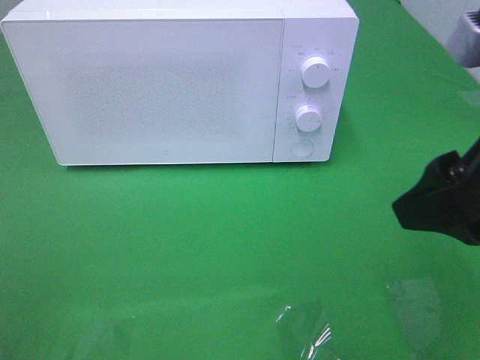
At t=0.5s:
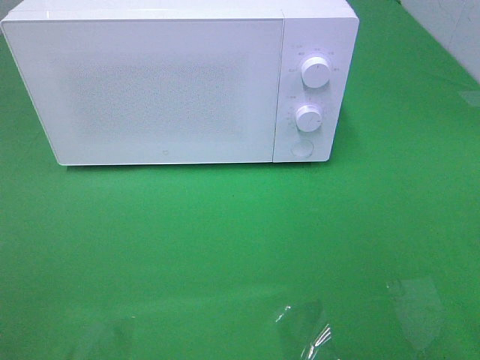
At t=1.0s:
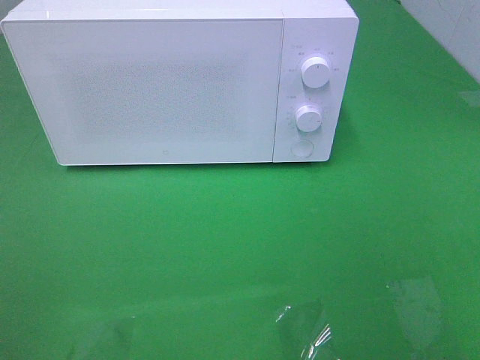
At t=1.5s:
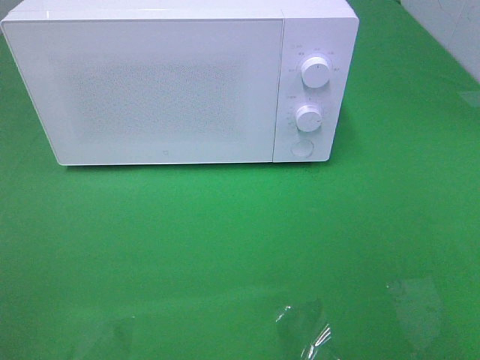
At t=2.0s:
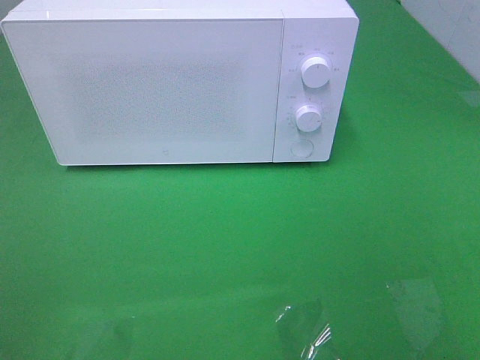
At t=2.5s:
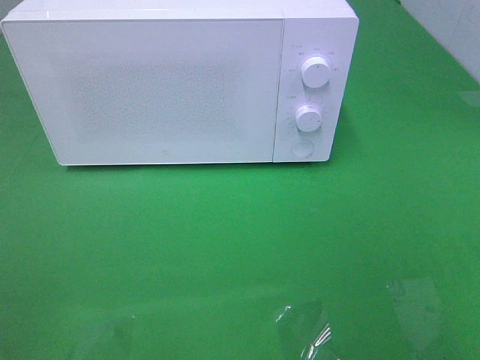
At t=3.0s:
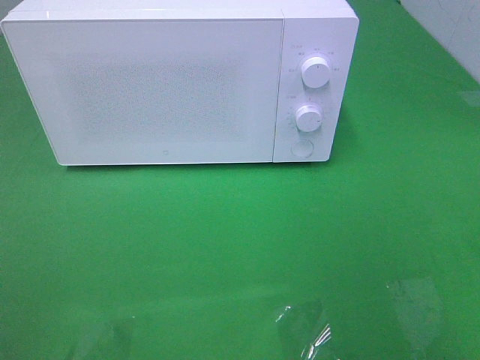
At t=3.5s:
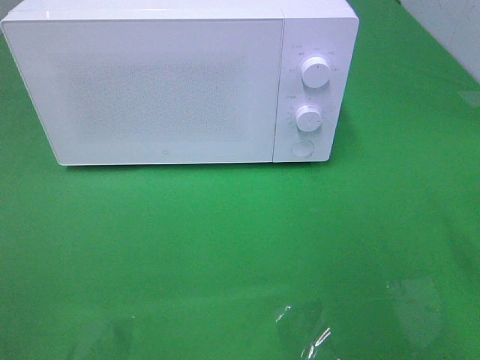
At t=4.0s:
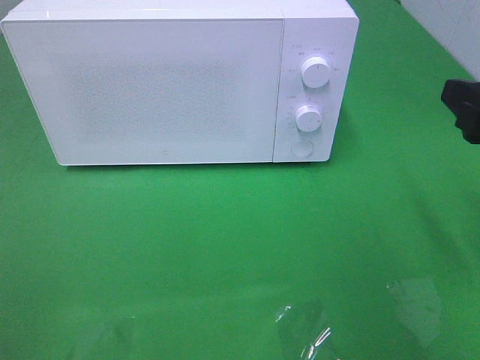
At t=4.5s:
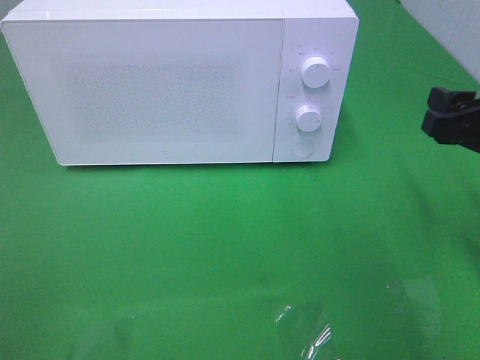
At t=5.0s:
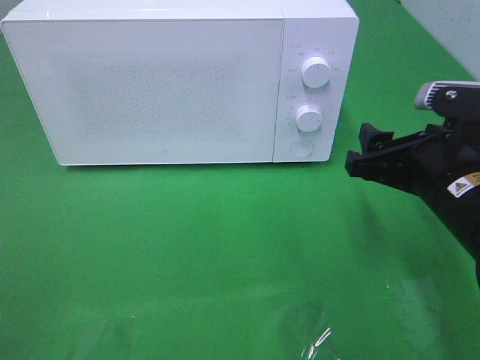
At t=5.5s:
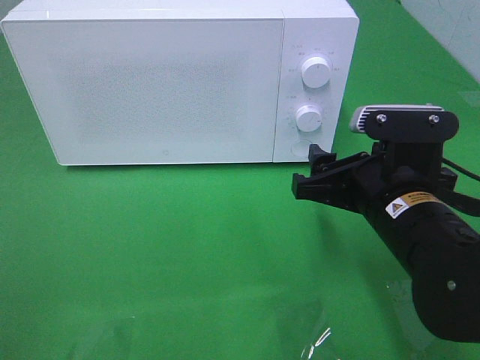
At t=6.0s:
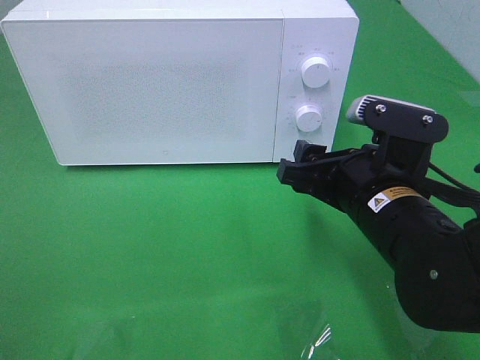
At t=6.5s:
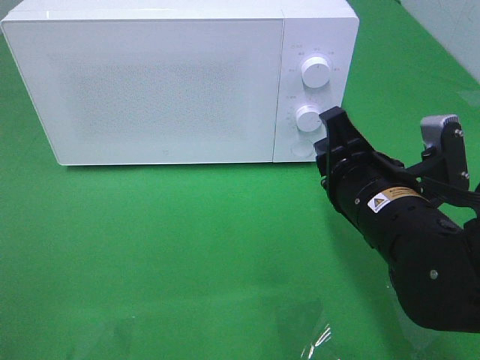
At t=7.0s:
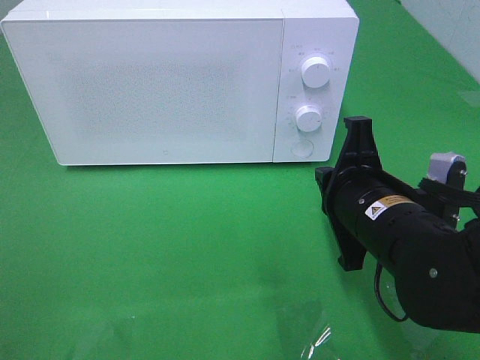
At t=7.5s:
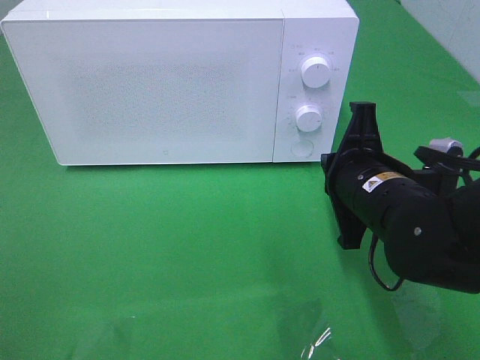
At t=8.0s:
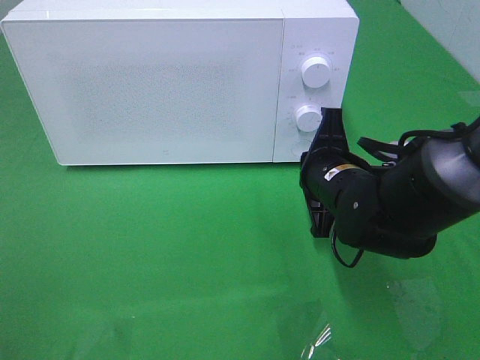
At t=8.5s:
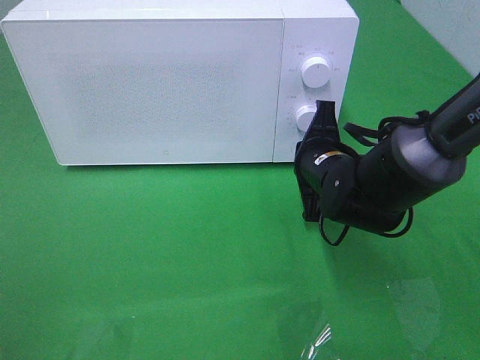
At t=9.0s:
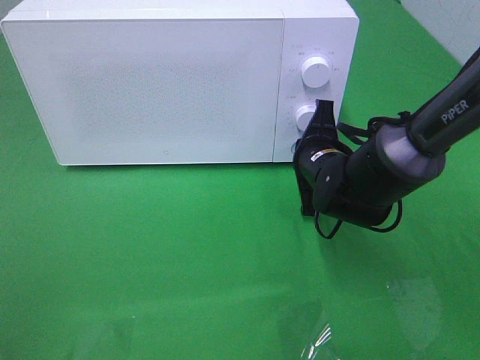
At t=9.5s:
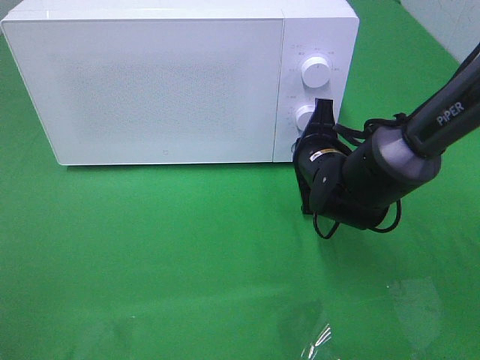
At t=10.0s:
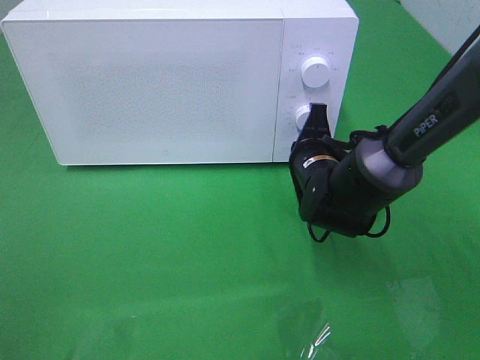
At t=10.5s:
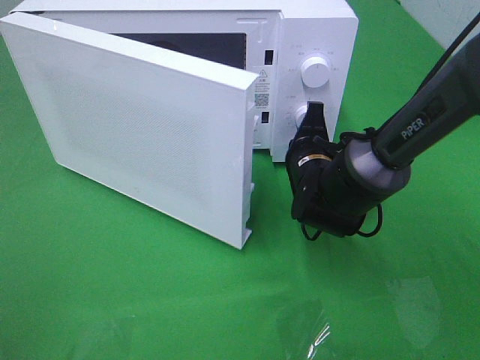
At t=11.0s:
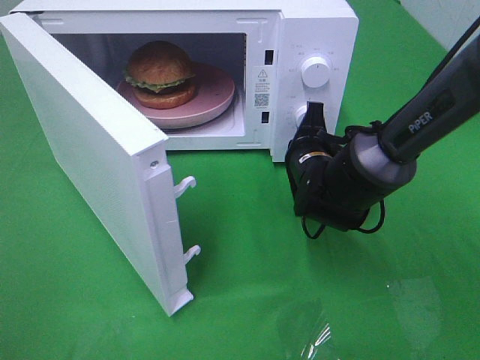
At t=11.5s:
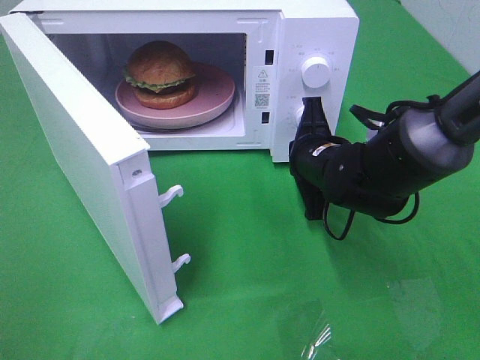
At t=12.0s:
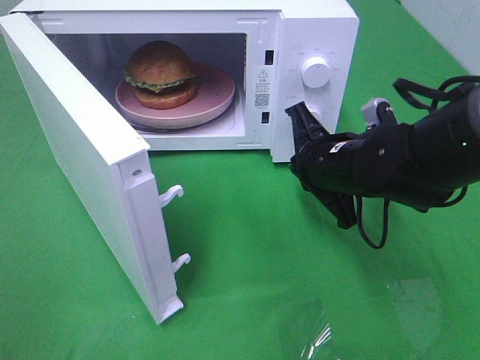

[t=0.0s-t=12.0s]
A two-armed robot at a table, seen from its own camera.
Task of the whole recording: Heat the burger.
Step, t=0.0s to t=11.5s: Right hand: press the switch.
t=0.0s to t=2.0s: The right gripper heads backward and to the right, covering approximately 15 cm.
t=2.0s to t=4.0s: The right gripper is displaced forward by some 20 cm.
t=4.0s to t=6.0s: The right gripper heads to the left and downward, covering some 15 cm.
t=6.0s to t=8.0s: The right gripper goes about 5 cm forward, and closes.
t=8.0s to t=10.0s: The right gripper travels forward by some 5 cm.
t=10.0s to t=12.0s: The right gripper moves upward and backward, approximately 10 cm.

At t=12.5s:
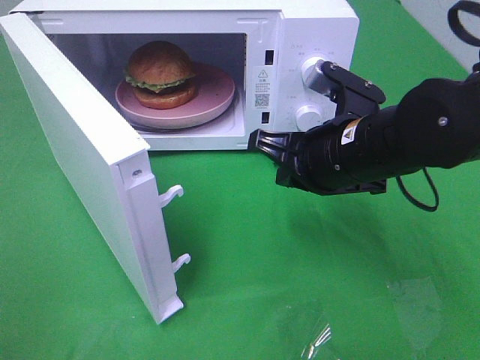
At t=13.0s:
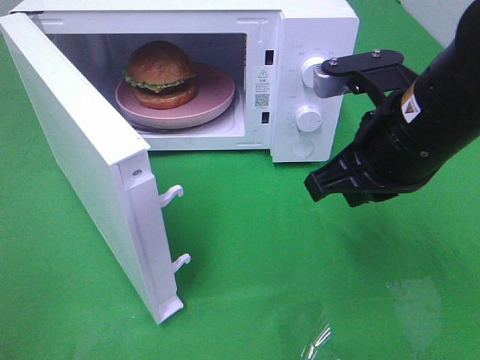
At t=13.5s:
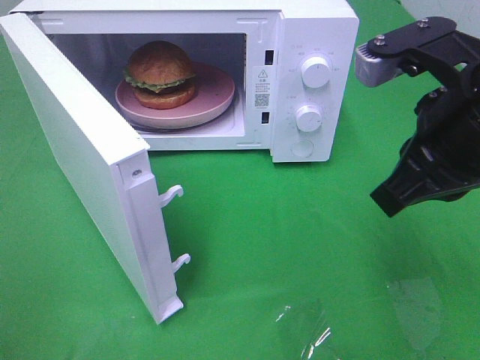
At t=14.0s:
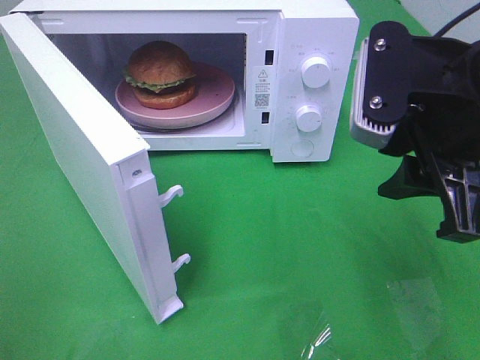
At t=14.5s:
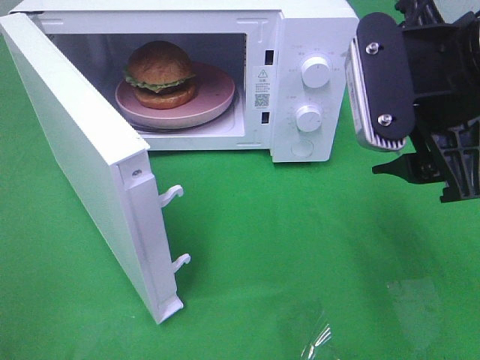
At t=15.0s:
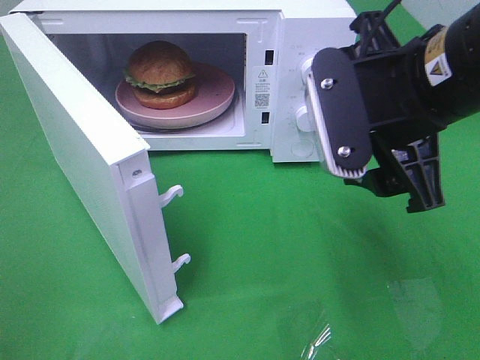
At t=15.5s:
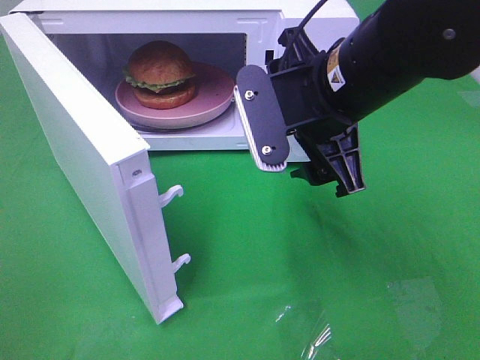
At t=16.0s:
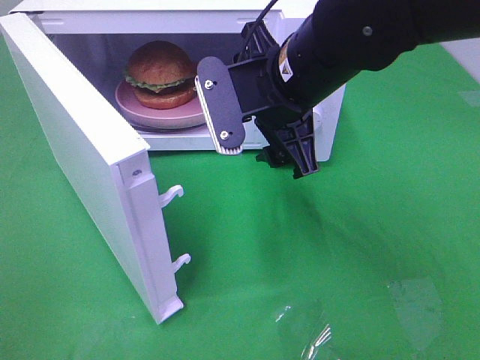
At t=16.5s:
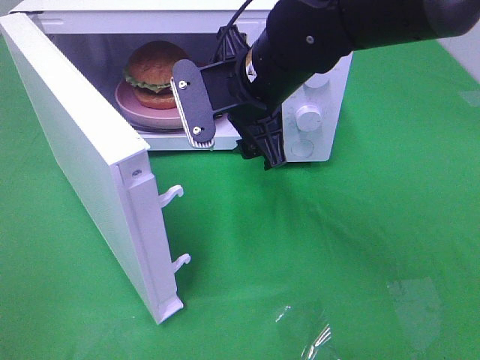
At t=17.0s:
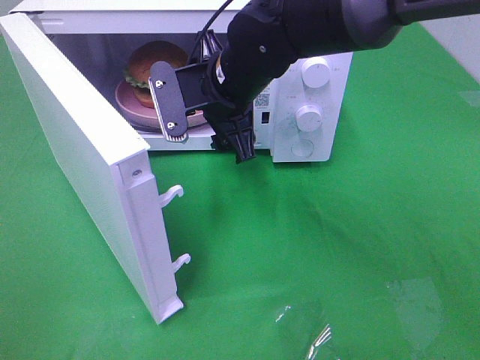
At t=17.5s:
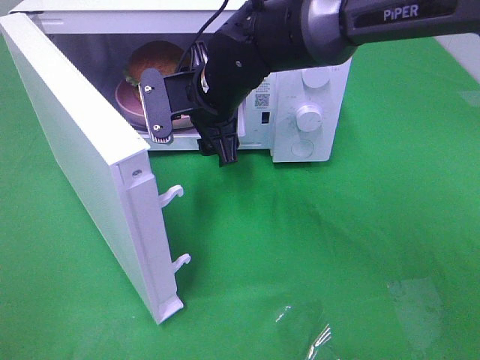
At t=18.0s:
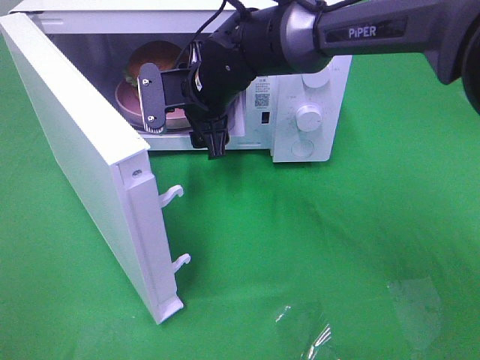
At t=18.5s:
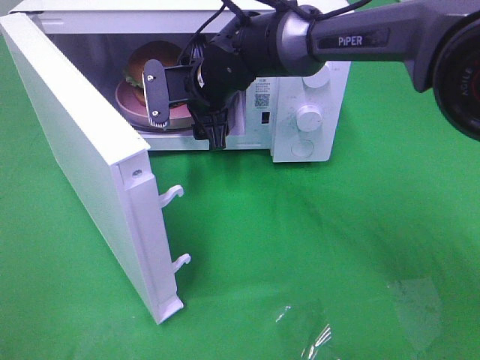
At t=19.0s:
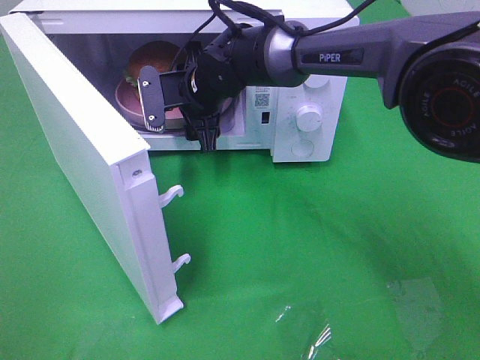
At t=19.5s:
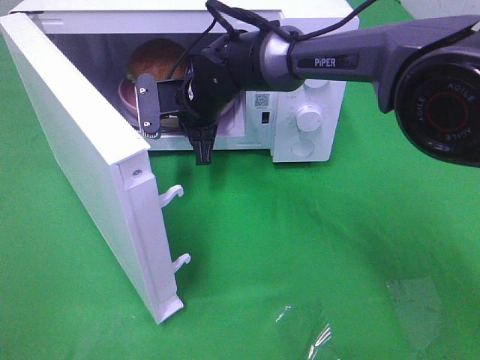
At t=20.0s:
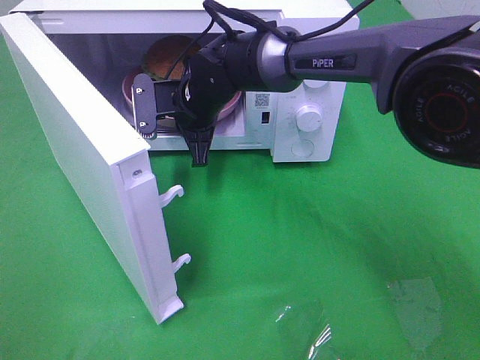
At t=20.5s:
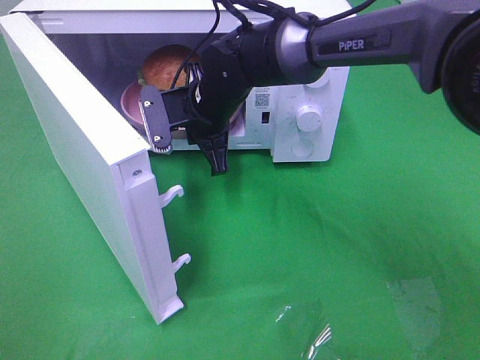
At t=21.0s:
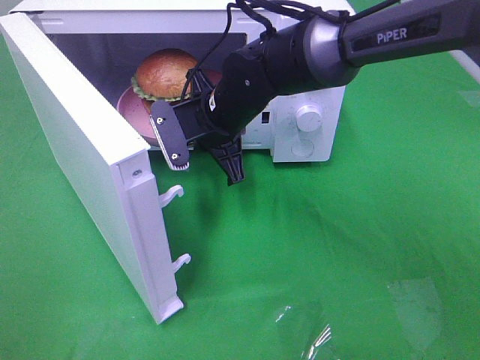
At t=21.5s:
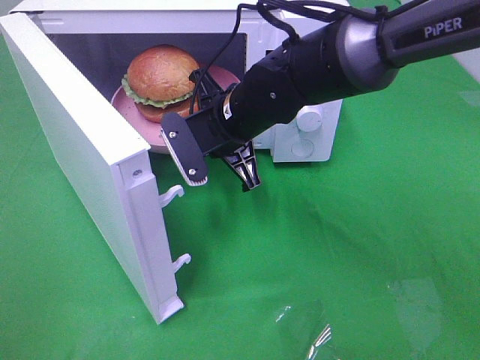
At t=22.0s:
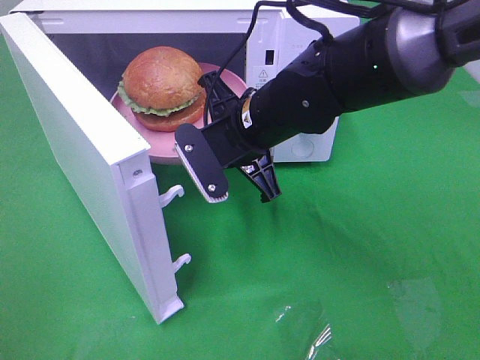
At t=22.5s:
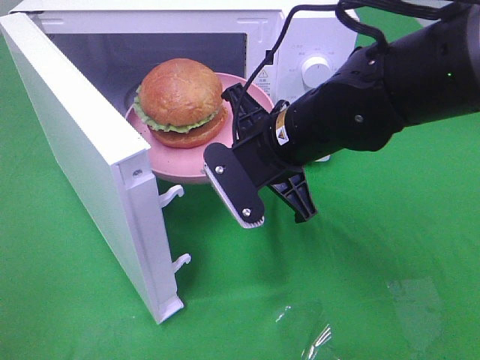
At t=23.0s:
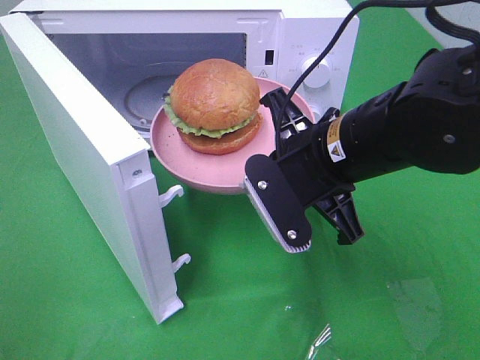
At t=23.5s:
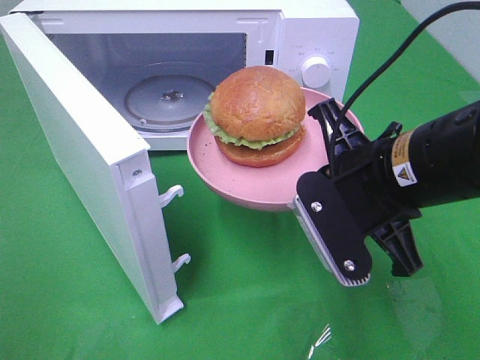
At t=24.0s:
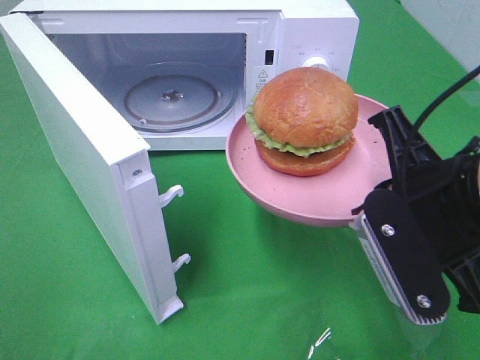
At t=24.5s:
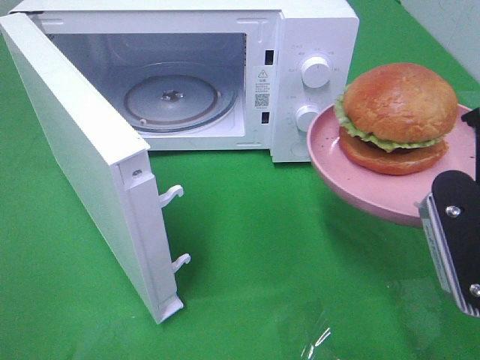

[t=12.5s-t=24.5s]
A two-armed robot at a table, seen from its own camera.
Task of the whole recording: Heat the burger.
Step, t=12.5s to t=19.5s: Right hand: grab the plate with the hamburger.
t=12.5s to t=14.5s: The right gripper heads upward, covering some 10 cm, and opens.
t=14.5s to t=16.5s: The right gripper goes about 20 cm to the left, forward and downward.
t=16.5s to t=18.5s: The right gripper goes roughly 15 cm forward, downward and to the left.
t=18.5s to t=20.5s: The right gripper closes up.
t=20.5s to t=22.5s: The right gripper travels backward and to the right by about 15 cm.
t=22.5s to t=24.5s: The right gripper moves to the right and backward, roughly 20 cm.

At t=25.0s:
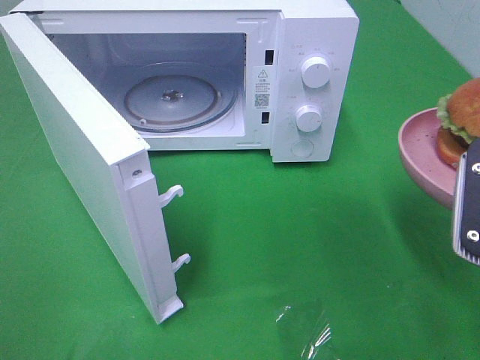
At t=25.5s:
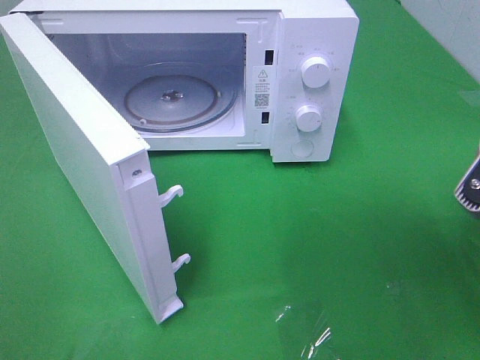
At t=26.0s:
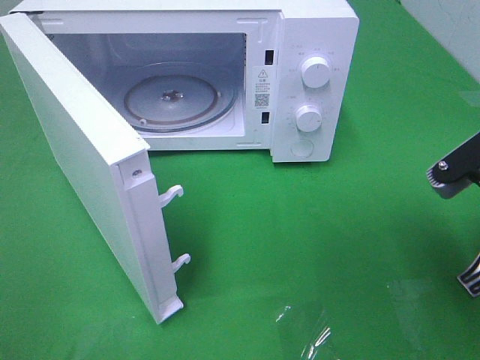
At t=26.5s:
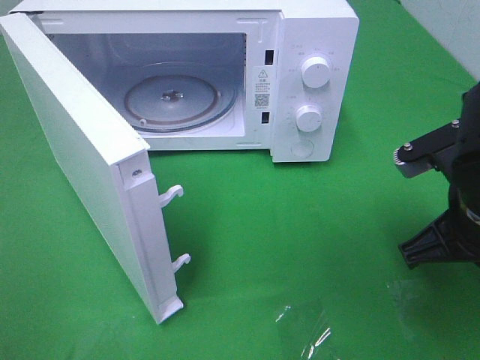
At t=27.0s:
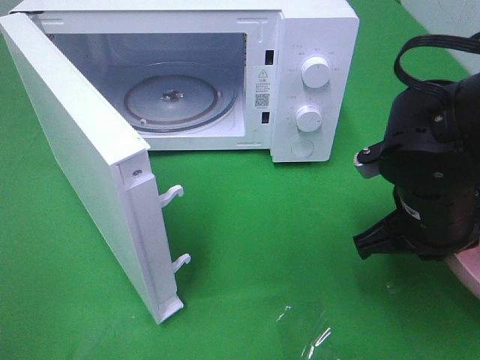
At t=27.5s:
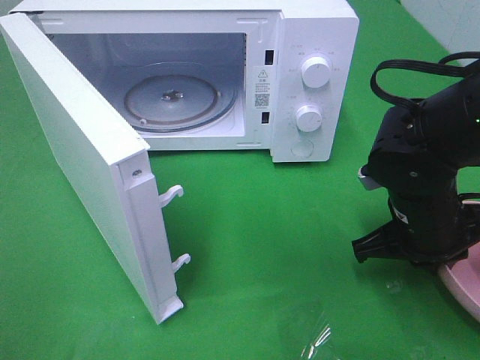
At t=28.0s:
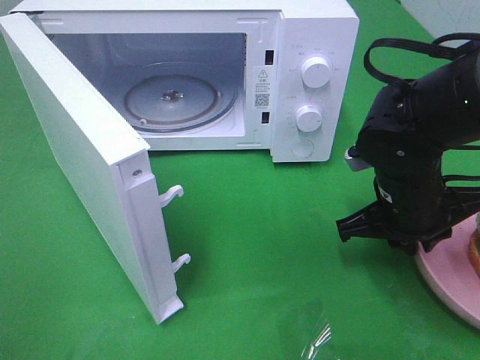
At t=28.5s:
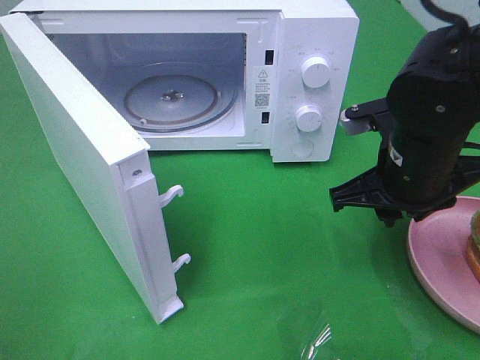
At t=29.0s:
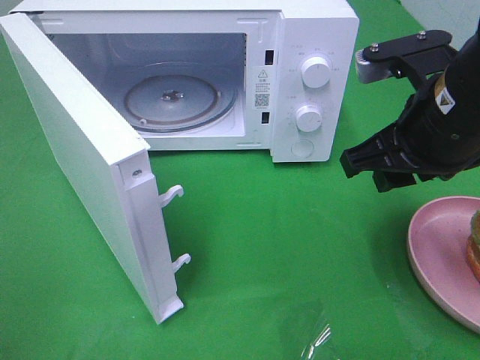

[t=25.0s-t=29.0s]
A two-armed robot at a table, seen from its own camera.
Task of the whole recording: Heat the burger.
Step, t=25.0s to t=28.5s: Right hand: place the plate on the table.
t=25.0s to t=27.0s: The right gripper heads downward, forward and to the left, covering about 15 cm.
t=27.0s to t=29.0s: The right gripper goes some 10 cm upward, and opens up.
